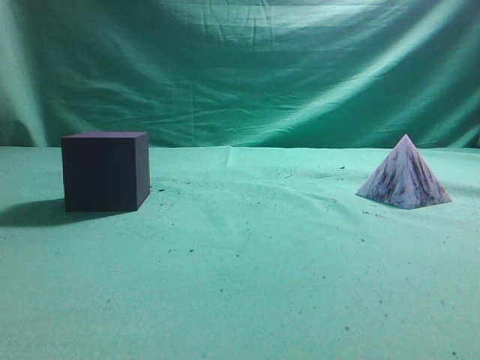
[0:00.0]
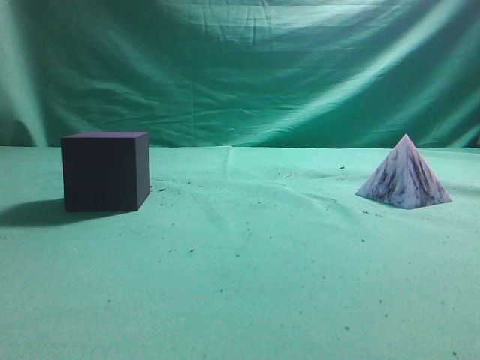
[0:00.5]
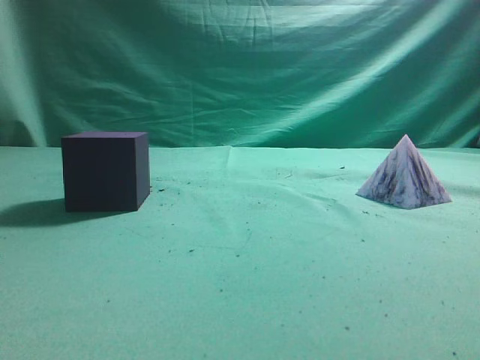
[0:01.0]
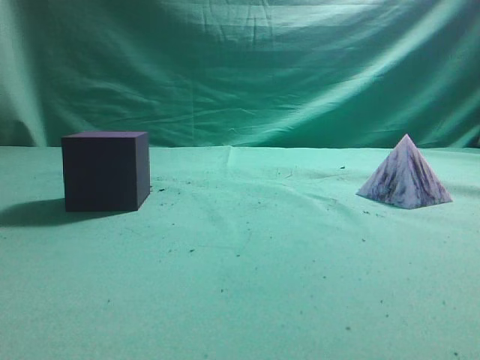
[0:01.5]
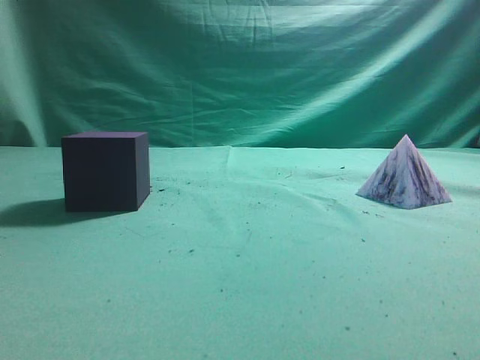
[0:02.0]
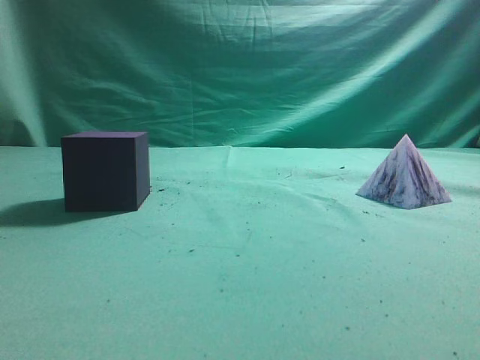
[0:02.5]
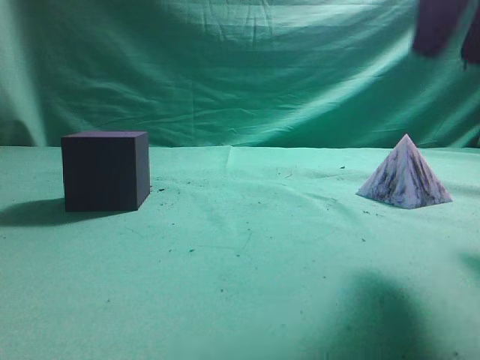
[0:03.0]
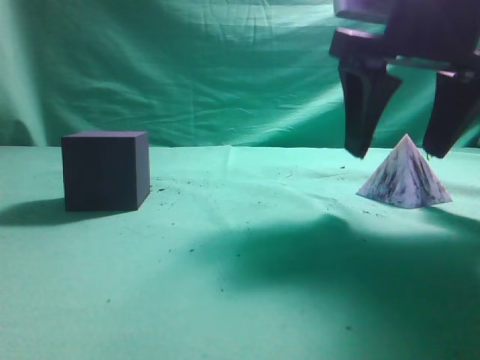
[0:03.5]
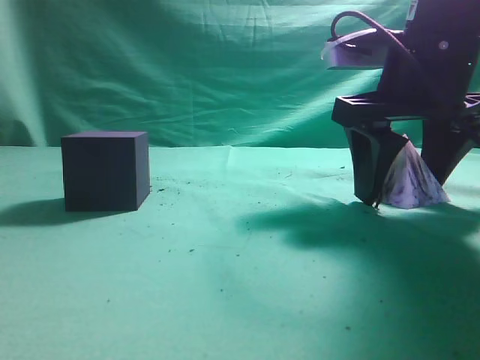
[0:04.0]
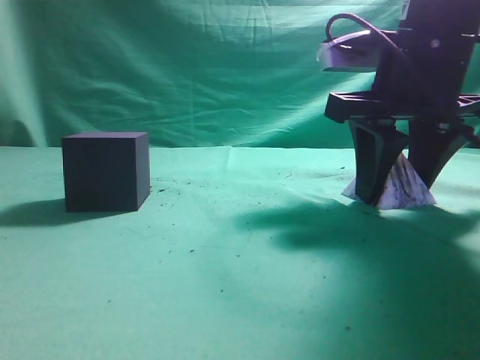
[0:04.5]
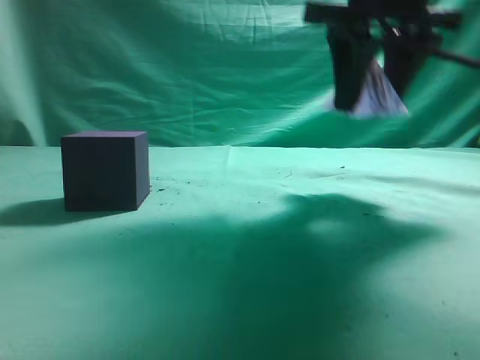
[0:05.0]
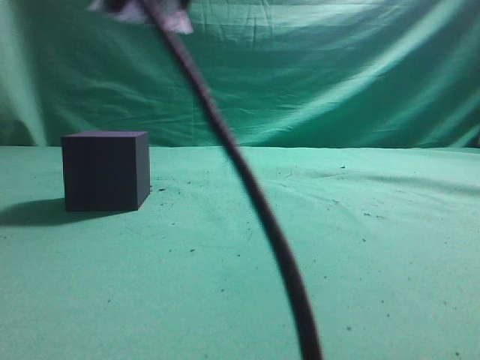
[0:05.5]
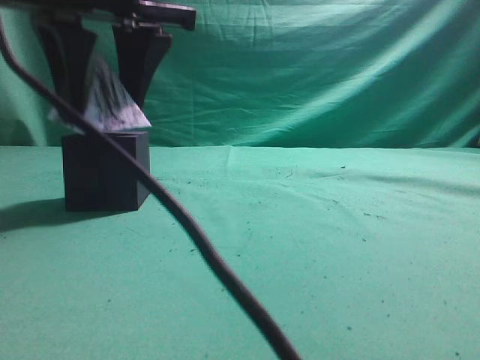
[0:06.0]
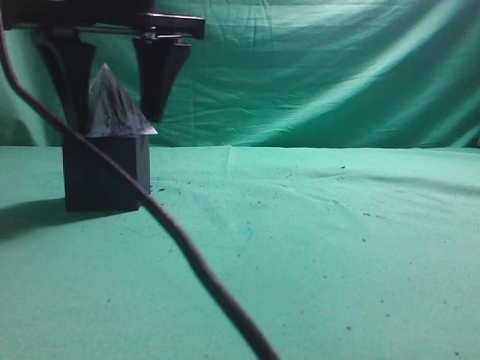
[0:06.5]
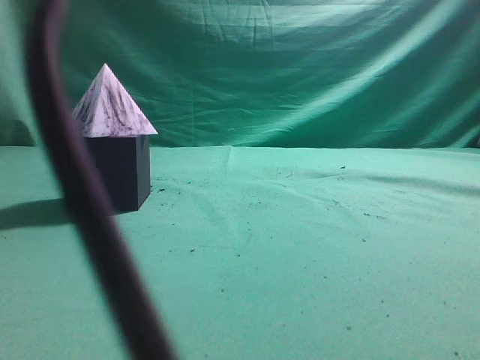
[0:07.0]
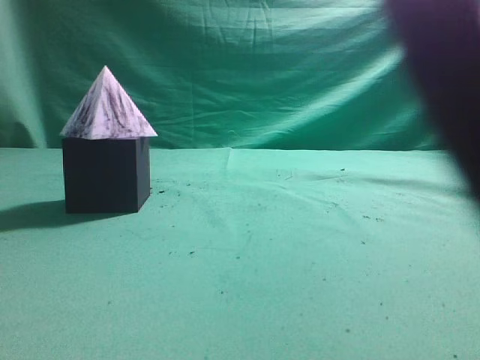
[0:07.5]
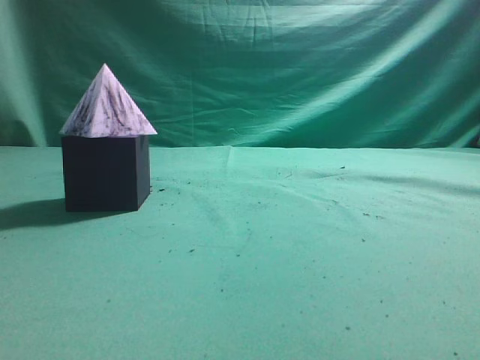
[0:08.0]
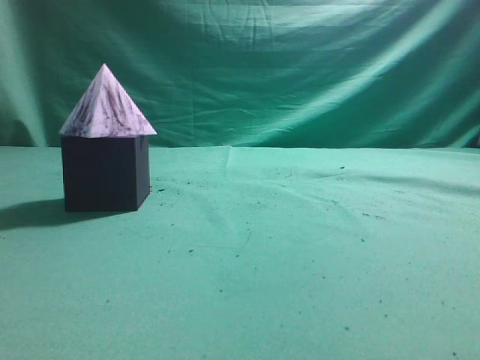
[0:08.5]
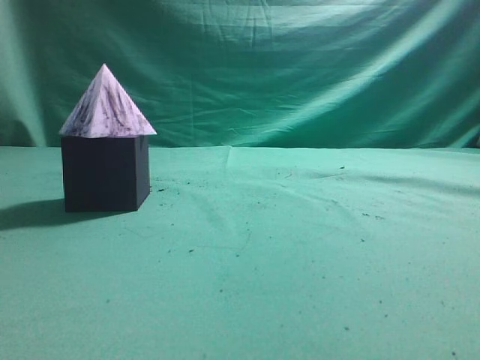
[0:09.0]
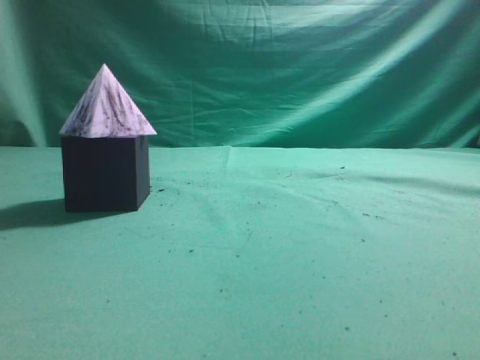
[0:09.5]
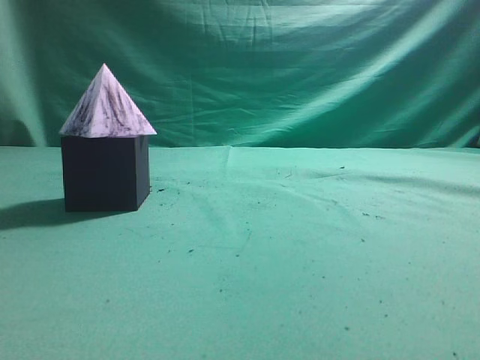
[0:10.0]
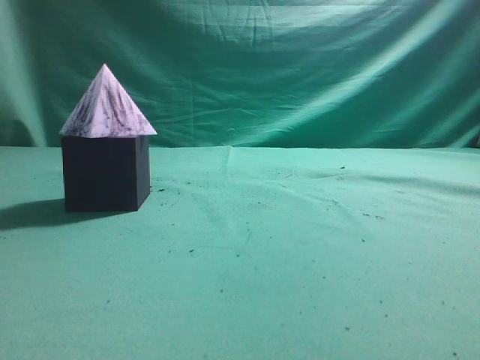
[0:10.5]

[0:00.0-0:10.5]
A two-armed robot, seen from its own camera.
Task of the whole recording: pick up the square pyramid from the table and place it on the cube block.
Step, 0:00.0 to 0:04.5: Grasp the triangular block.
Step, 0:05.0 to 0:06.5: Place the block onto the cube-shaped block.
0:02.0 to 0:04.0: The right gripper goes roughly 30 cm forward, downward and to the left, and opens its fingers.
0:04.0 to 0:06.5: The right gripper travels to the left by approximately 25 cm.
0:06.5 to 0:08.5: The right gripper goes about 40 cm to the right, backward and upward, and closes its fingers.
